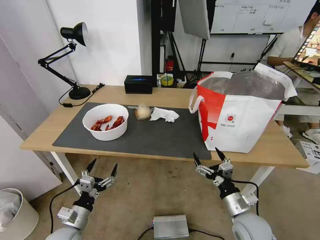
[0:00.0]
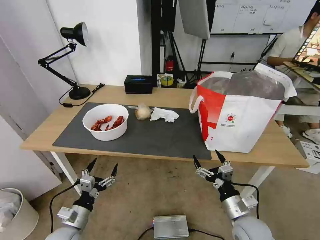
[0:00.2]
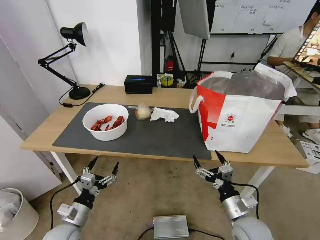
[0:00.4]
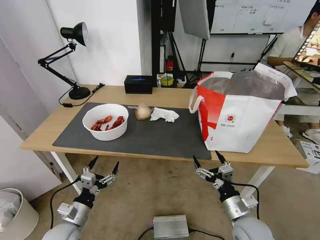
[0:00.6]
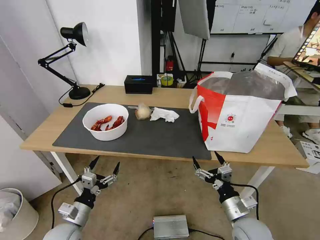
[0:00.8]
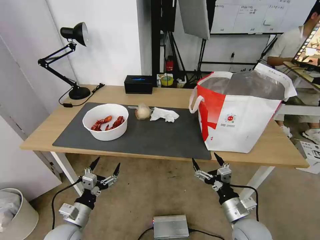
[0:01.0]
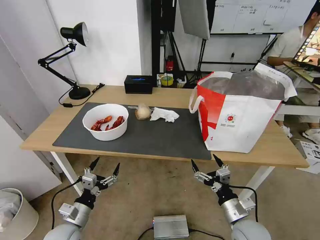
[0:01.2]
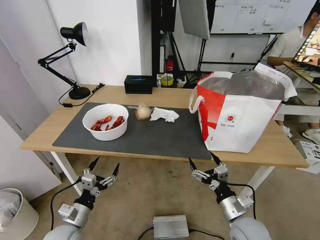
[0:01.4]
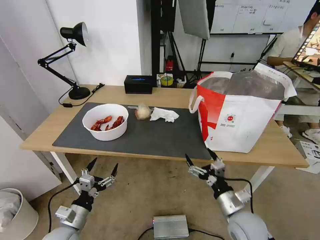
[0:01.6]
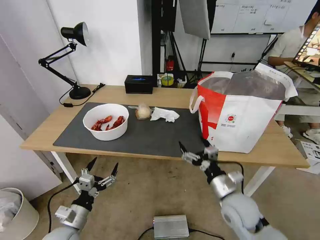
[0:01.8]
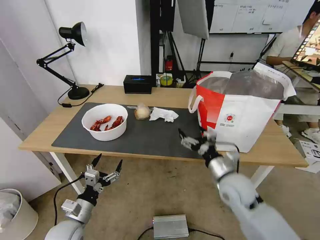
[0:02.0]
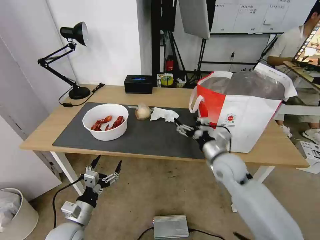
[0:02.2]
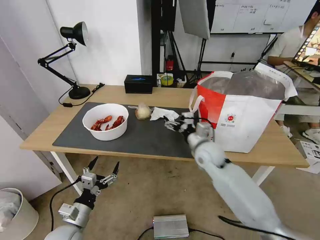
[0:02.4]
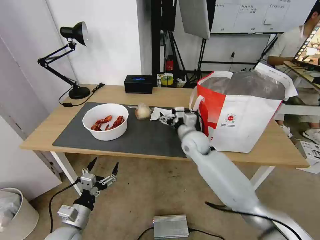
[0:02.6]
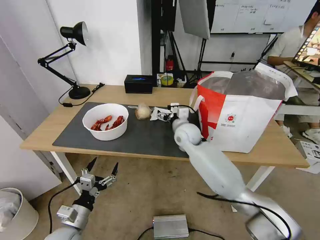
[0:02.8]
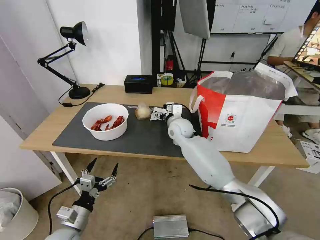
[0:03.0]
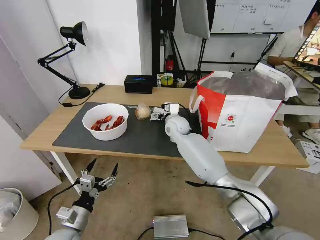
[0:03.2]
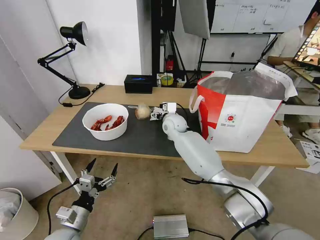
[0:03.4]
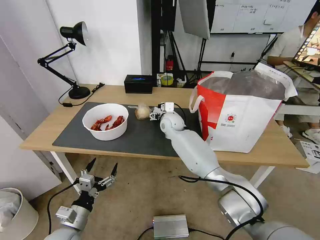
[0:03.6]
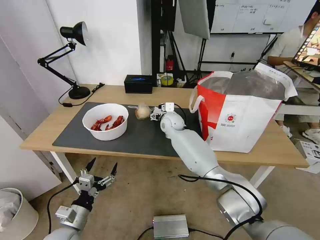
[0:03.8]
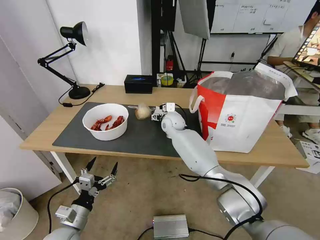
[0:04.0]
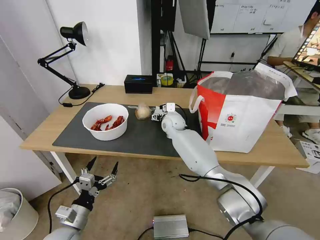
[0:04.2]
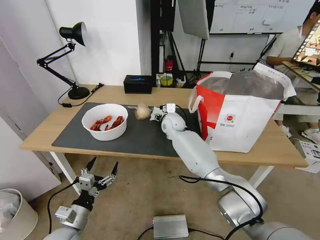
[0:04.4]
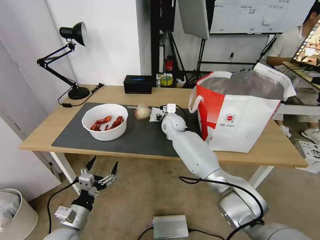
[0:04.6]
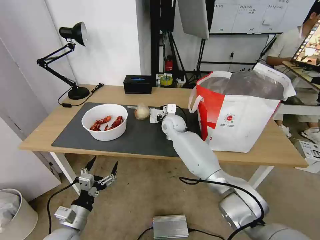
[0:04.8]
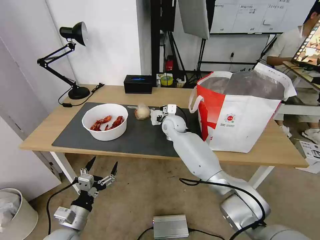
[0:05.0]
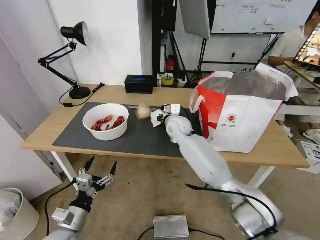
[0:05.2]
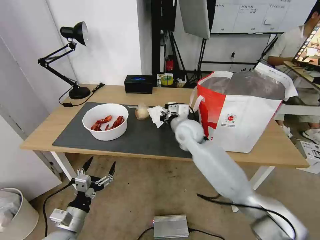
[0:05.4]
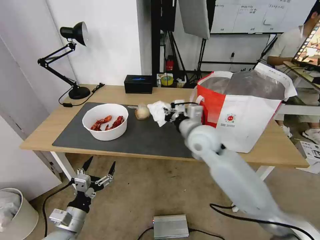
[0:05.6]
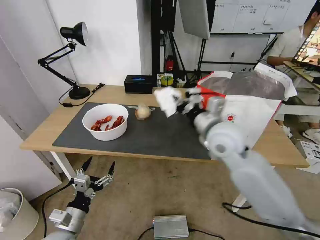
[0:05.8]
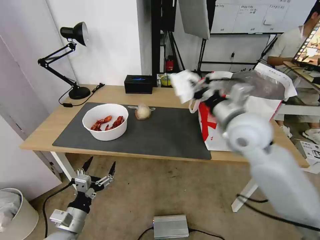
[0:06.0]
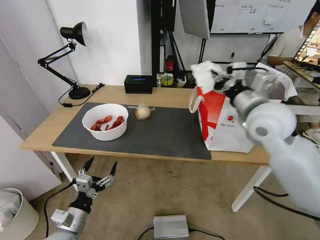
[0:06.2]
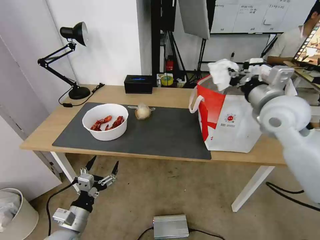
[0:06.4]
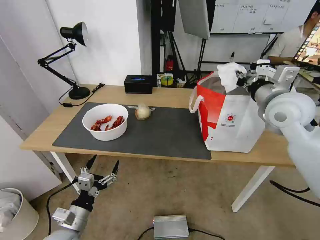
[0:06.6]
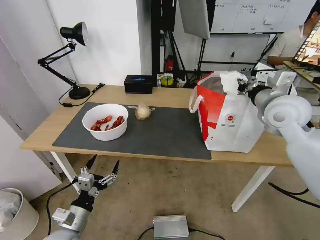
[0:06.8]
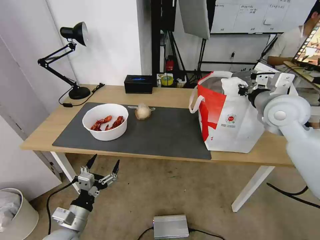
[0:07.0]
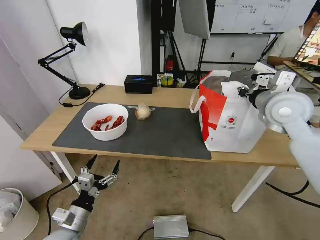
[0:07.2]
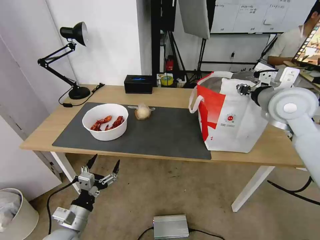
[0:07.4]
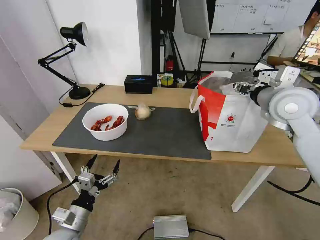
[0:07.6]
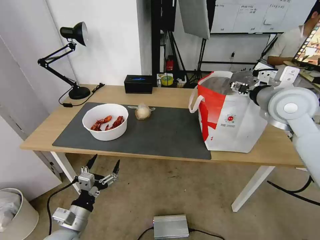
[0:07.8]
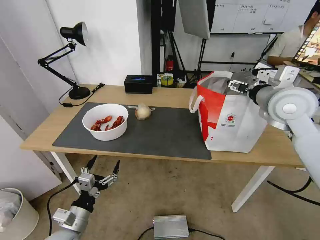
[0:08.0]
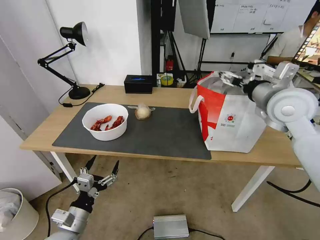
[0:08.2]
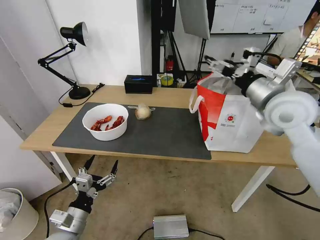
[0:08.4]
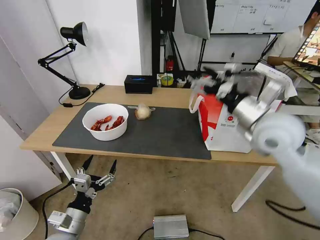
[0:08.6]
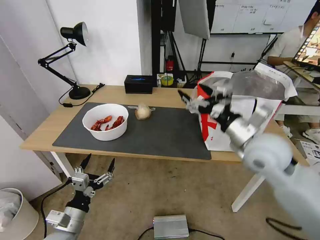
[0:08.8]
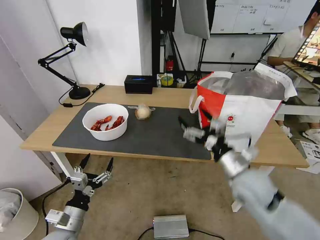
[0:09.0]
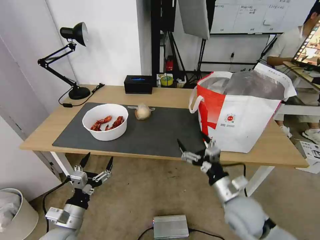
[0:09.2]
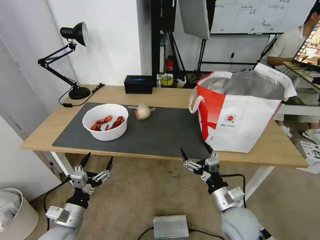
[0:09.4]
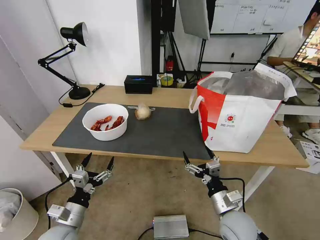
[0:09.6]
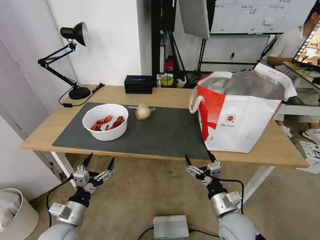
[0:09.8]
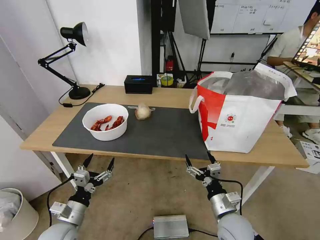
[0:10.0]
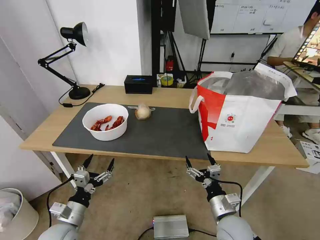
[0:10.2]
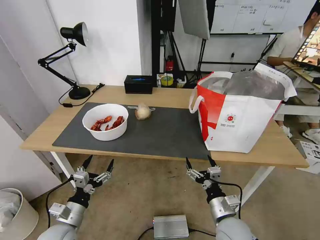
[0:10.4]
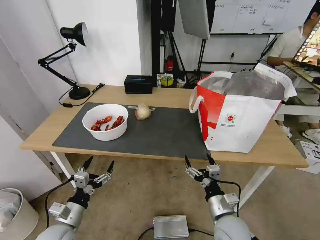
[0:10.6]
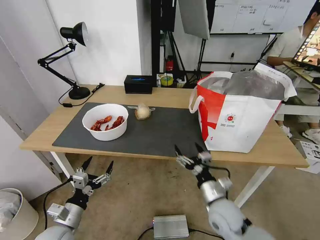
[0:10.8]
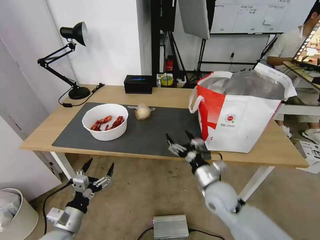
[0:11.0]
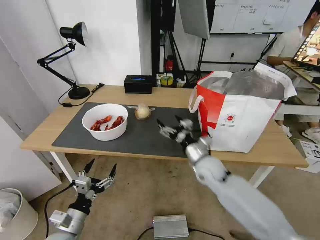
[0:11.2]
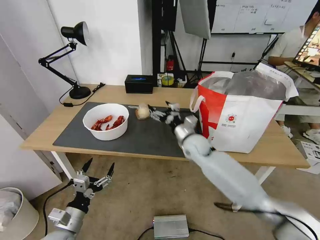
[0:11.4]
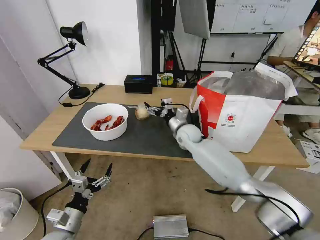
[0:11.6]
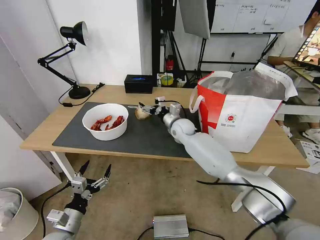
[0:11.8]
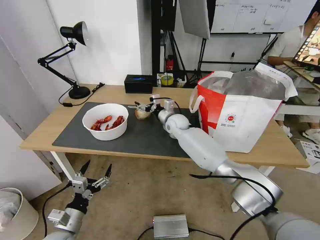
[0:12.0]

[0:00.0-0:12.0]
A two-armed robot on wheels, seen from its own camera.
Task of the whole recording: Pick up the trash from the table and place it into the takeout bag.
0:00.0 to 0:01.6: There are only small adjustments of the grippers.
0:01.6 to 0:03.0: The right gripper moves forward and to the left, approximately 35 cm.
0:03.0 to 0:04.4: The right gripper moves forward, roughly 5 cm.
0:04.4 to 0:06.0: The right gripper travels backward, upward and to the right by some 35 cm, and closes its fingers.
0:06.0 to 0:07.6: The right gripper moves to the right and forward, approximately 10 cm, and opens.
0:07.6 to 0:09.0: The right gripper goes about 25 cm downward, backward and to the left, and opens up.
0:09.0 to 0:10.4: The right gripper shifts approximately 20 cm downward and backward.
0:10.4 to 0:12.0: The right gripper heads forward, covering approximately 40 cm.

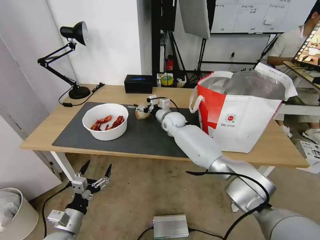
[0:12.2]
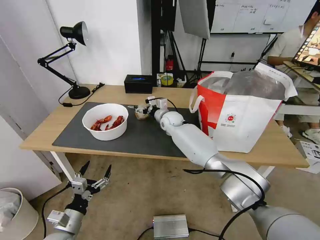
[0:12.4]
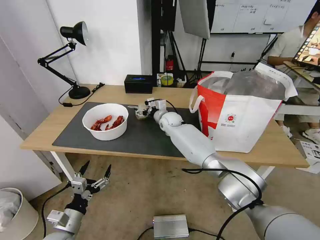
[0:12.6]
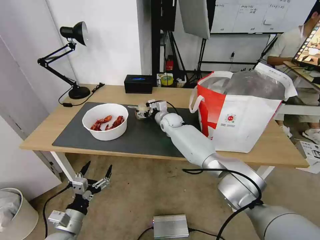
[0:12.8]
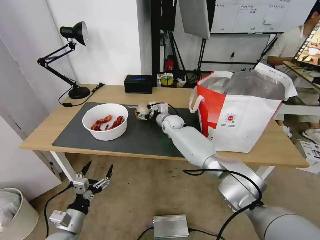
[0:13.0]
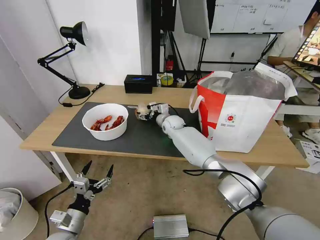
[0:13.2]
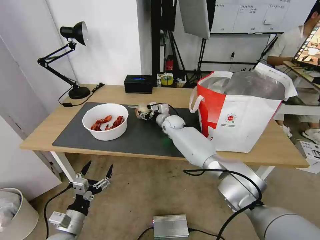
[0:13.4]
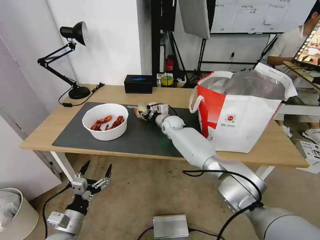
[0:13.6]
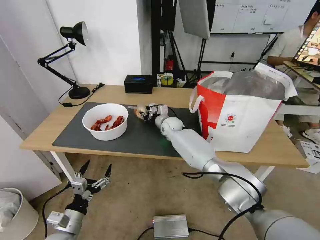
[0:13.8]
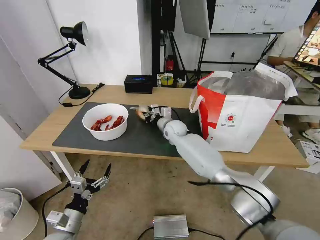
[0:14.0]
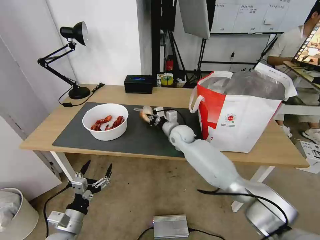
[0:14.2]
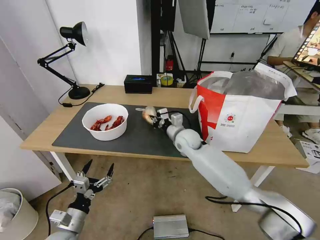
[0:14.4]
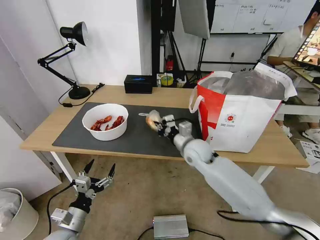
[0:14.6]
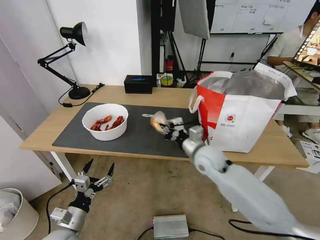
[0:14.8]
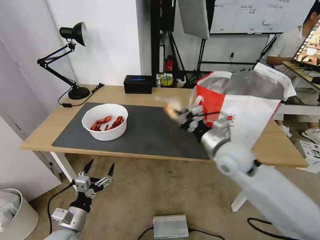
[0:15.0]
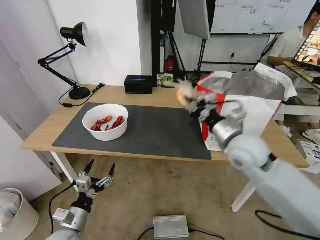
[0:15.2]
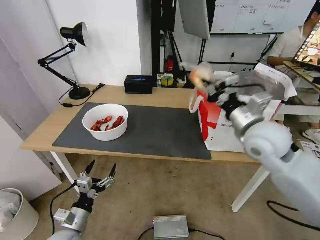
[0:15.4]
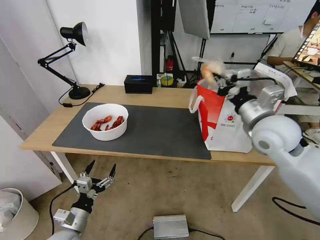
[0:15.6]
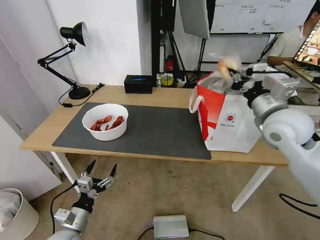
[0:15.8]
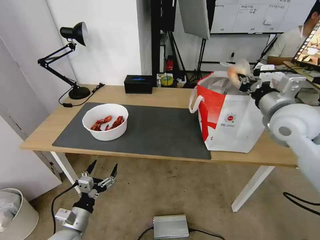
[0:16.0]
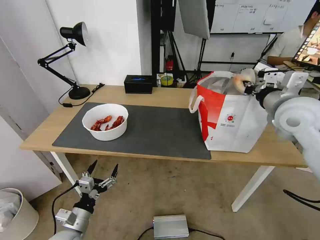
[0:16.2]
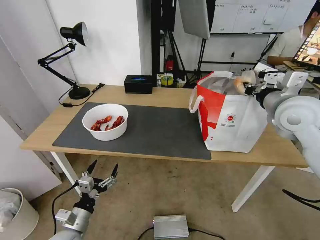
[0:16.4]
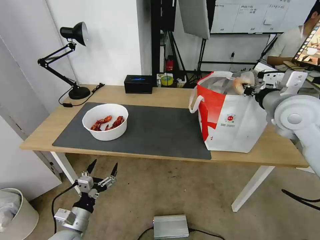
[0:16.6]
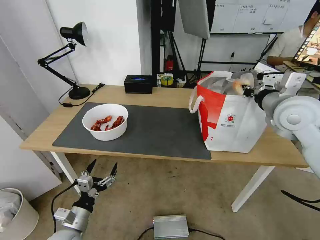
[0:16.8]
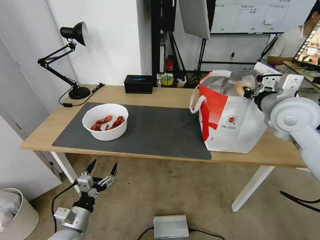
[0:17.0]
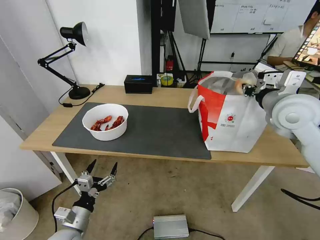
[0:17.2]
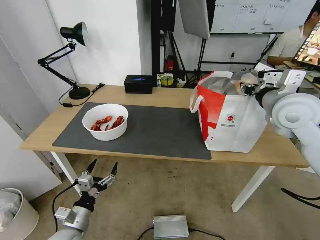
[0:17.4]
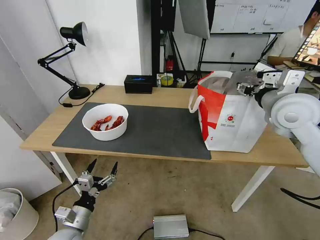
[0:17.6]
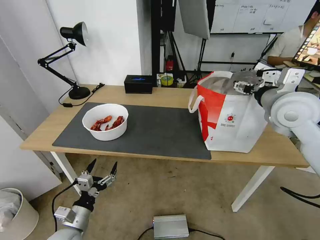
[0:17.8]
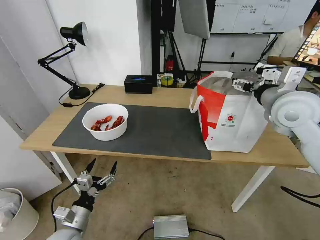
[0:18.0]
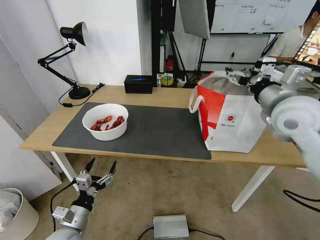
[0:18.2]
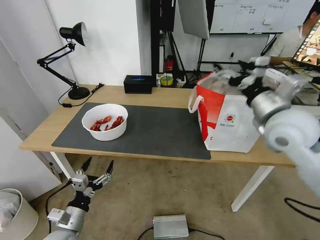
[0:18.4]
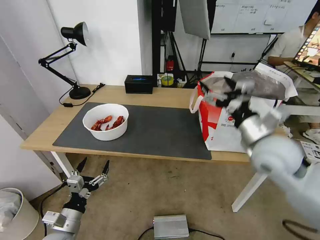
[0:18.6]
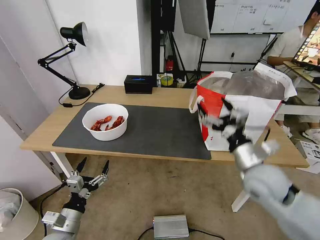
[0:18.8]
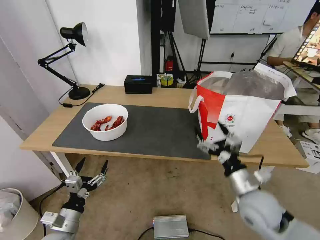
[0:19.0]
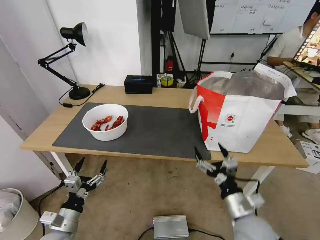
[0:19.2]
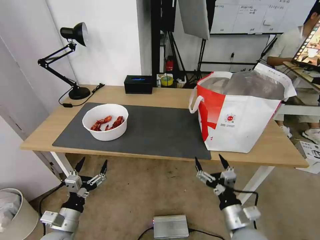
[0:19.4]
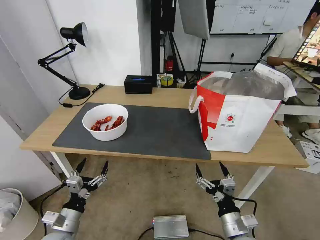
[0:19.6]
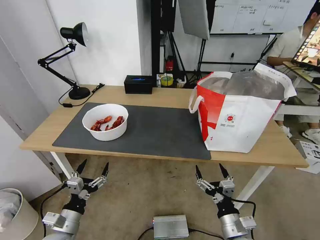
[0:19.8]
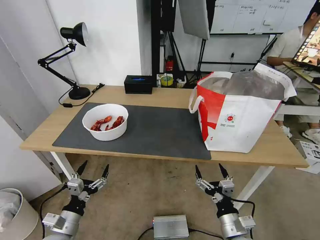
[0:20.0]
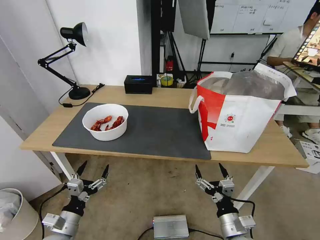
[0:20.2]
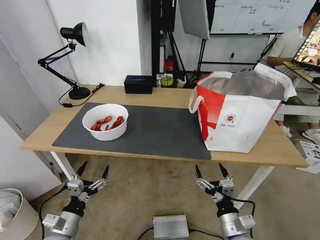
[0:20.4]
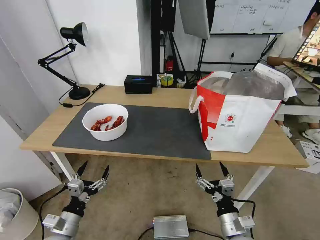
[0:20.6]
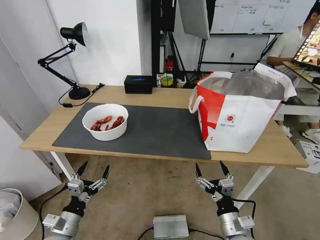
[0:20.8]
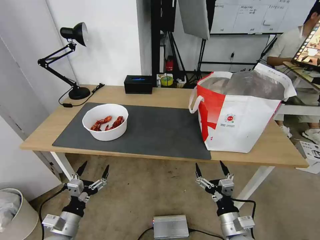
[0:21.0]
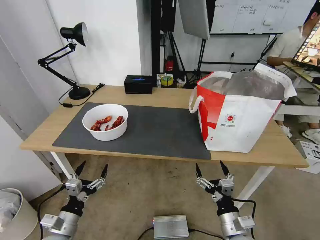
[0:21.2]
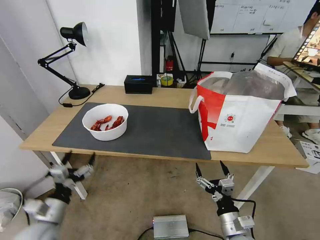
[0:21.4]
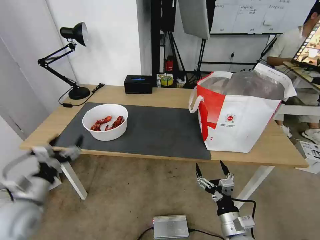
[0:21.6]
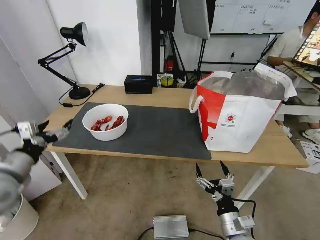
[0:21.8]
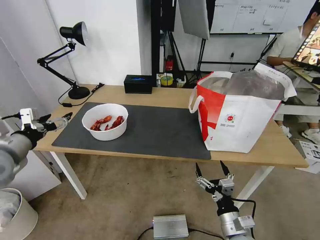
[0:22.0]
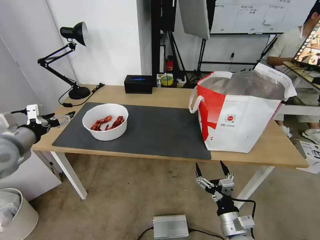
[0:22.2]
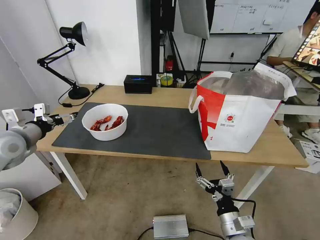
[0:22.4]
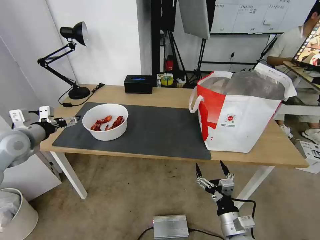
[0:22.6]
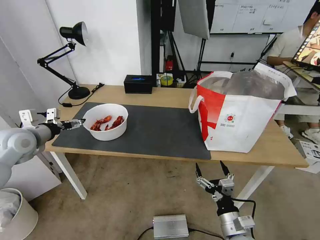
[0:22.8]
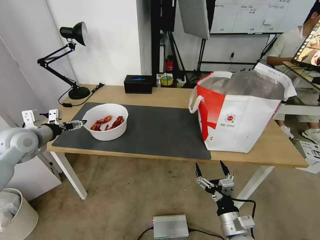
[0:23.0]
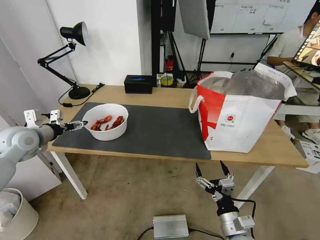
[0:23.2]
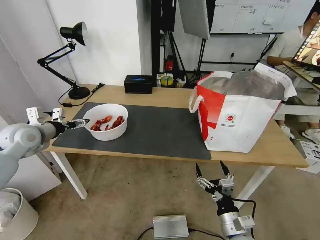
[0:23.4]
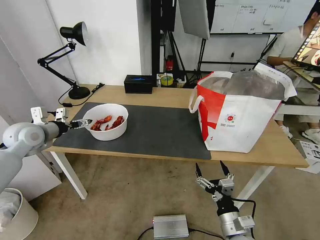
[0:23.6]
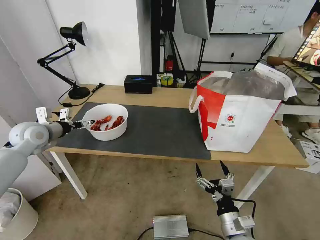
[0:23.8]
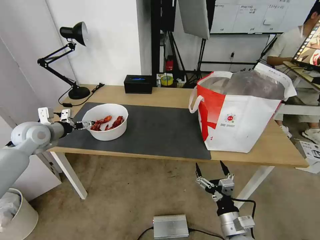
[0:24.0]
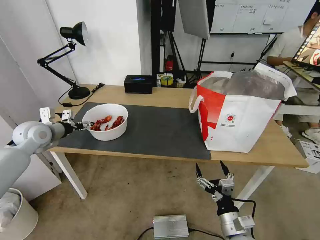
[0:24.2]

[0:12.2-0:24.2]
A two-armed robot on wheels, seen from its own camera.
Task of the whole recording: Pick up the trash from the table and place it into the takeout bag.
0:12.2 to 0:13.8: The right gripper closes up.
0:13.8 to 0:15.2: The right gripper heads backward, to the right and upward, covering approximately 30 cm.
0:15.2 to 0:16.6: The right gripper is displaced to the right and upward by some 15 cm.
0:16.6 to 0:18.2: The right gripper opens.
0:18.2 to 0:19.8: The right gripper is displaced downward and backward by approximately 40 cm.
0:19.8 to 0:21.2: Both grippers stay put.
0:21.2 to 0:22.6: The left gripper is displaced forward, upward and to the left by some 35 cm.
0:22.6 to 0:24.2: The left gripper goes roughly 5 cm forward.
